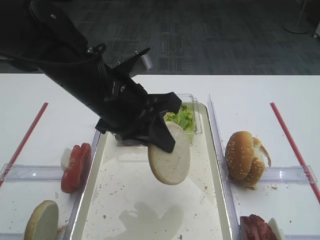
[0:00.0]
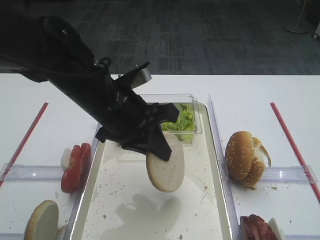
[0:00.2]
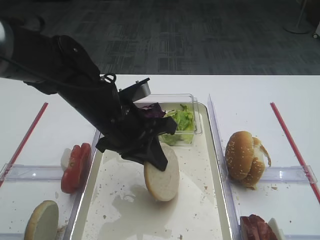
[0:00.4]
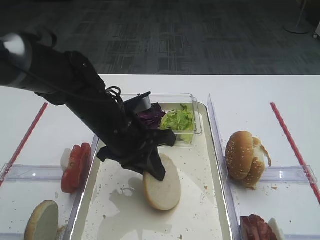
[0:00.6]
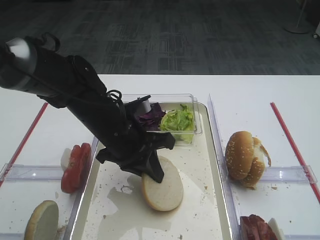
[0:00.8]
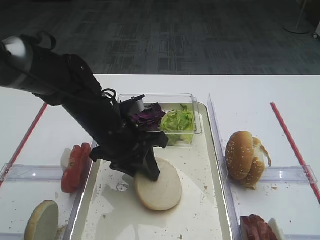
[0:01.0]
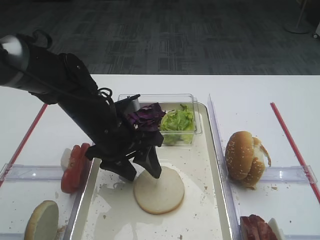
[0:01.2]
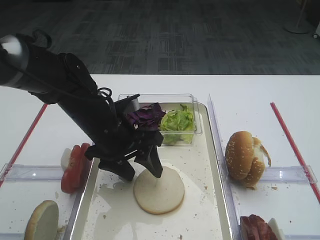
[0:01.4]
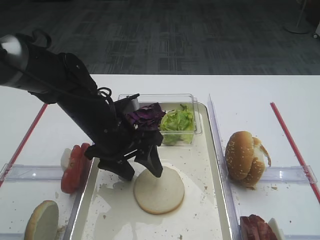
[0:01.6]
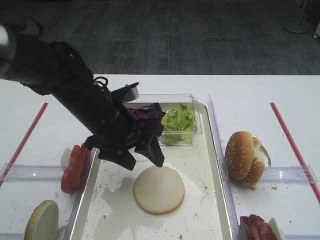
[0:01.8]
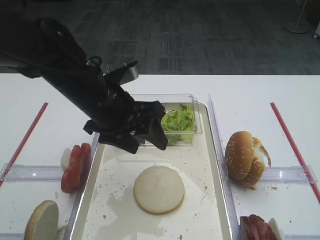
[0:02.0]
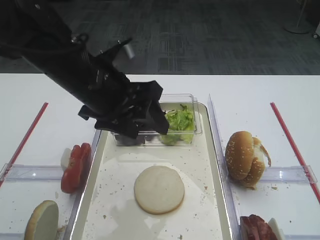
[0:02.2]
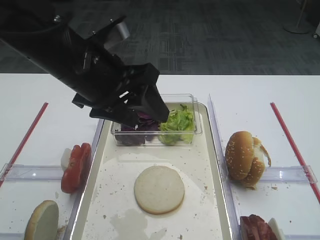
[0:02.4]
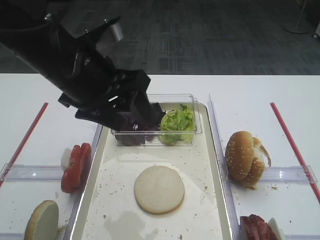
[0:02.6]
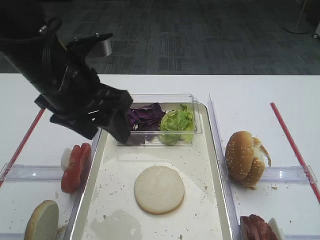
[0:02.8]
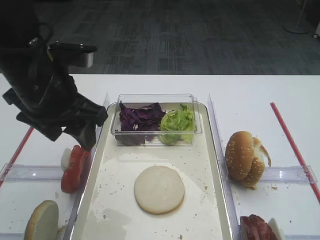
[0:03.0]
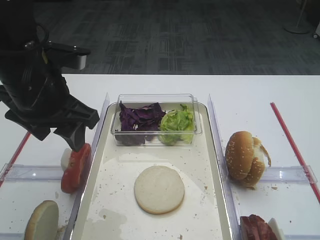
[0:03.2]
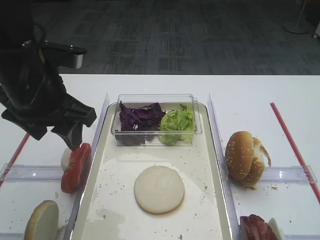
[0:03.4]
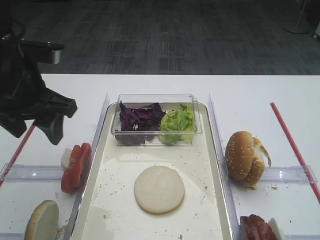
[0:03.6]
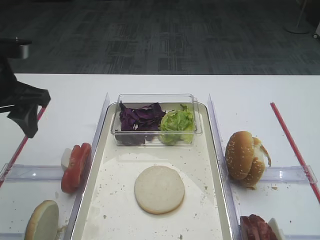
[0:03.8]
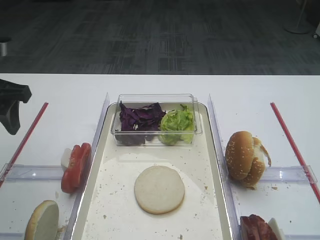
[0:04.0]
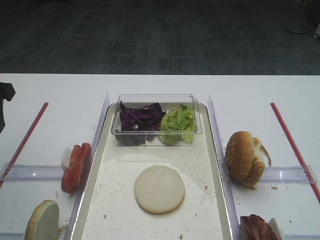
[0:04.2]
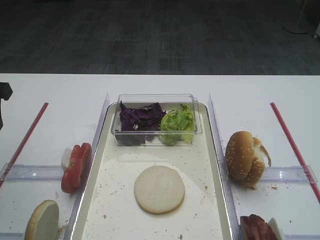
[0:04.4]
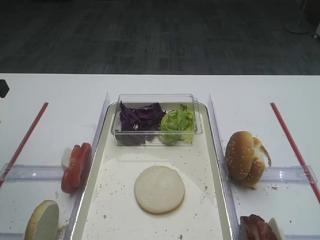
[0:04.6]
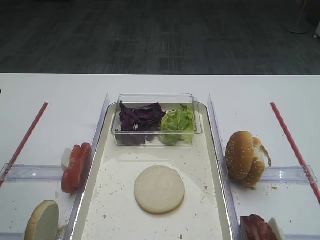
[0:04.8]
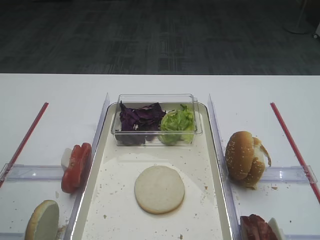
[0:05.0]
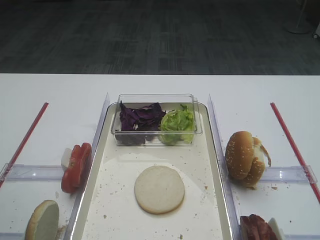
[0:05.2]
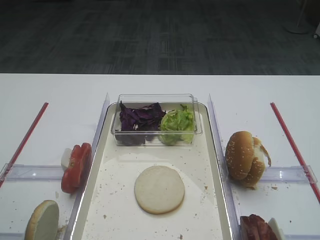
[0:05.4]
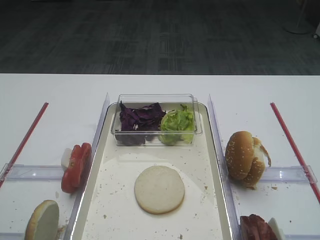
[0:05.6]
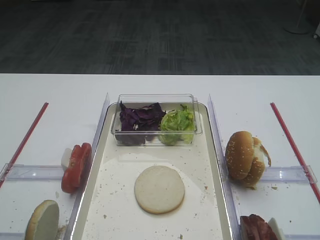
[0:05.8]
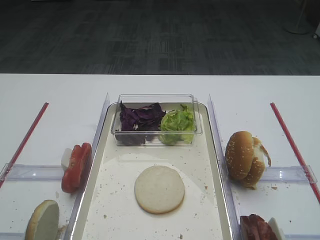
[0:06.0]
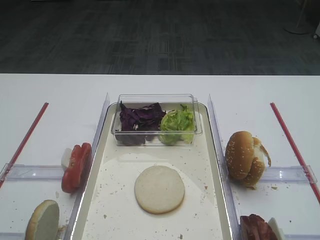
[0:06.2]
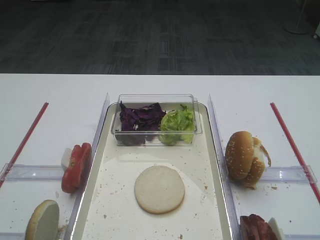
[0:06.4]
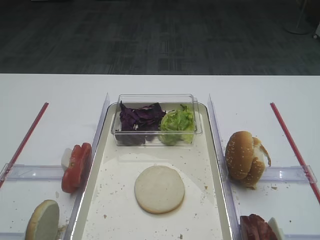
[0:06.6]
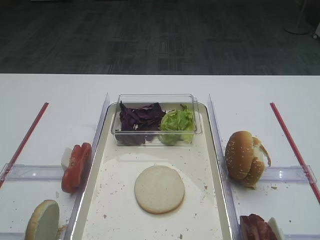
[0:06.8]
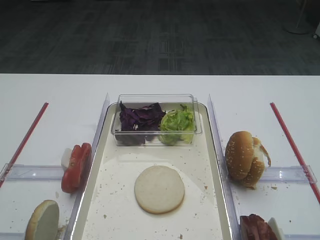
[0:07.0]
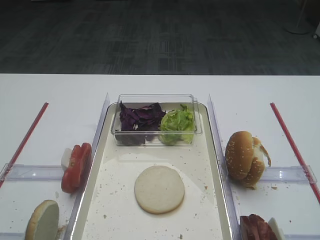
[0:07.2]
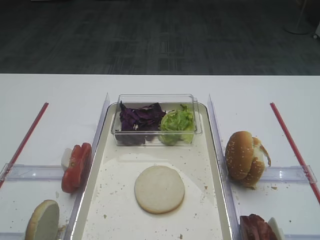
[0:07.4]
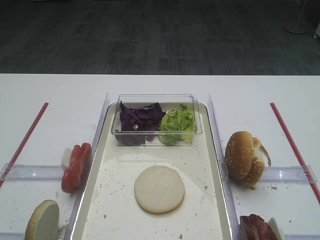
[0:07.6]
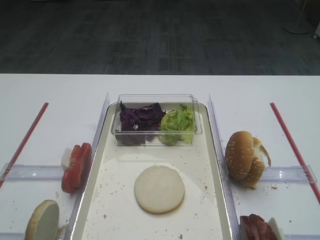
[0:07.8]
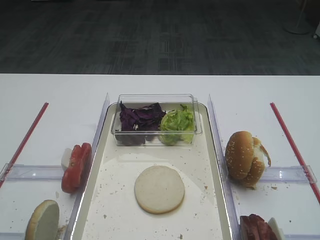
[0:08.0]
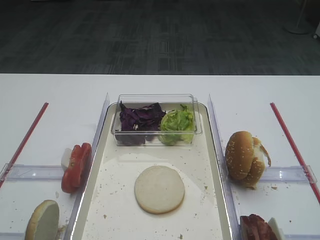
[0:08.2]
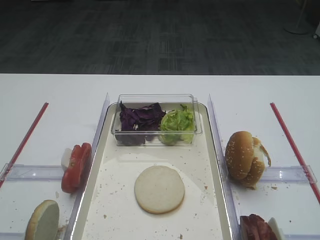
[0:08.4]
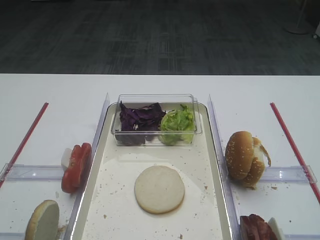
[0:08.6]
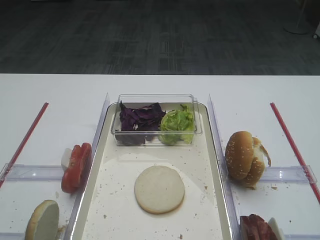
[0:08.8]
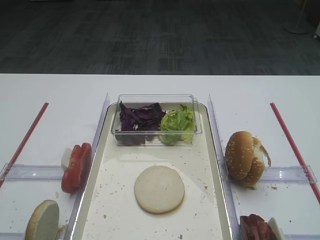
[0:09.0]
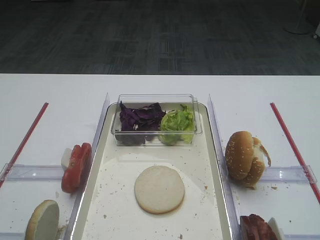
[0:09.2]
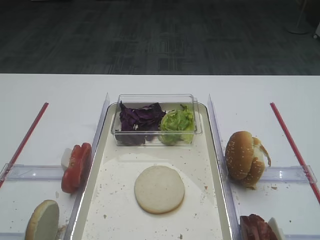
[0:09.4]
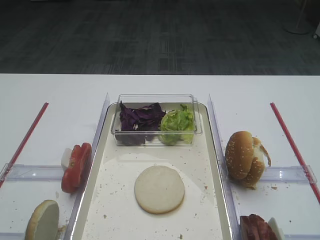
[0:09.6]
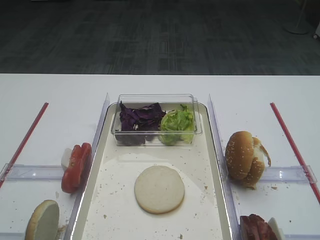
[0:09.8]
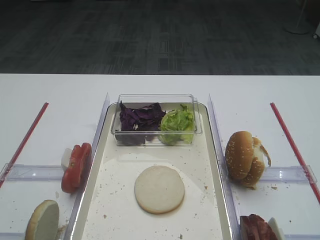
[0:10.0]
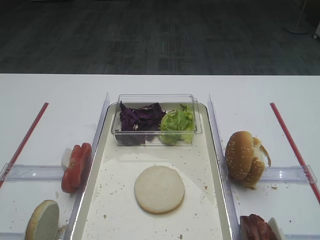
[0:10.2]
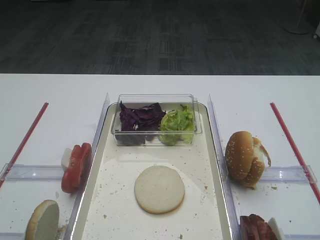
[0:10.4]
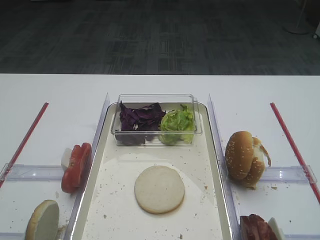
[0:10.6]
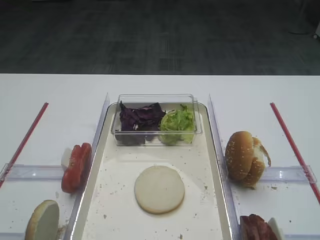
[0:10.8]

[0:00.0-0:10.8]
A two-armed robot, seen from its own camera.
Step, 0:00.0 to 0:03.0: Place the bread slice on the tray with the left gripper.
0:00.0 to 0:01.6: The left gripper shifts roughly 10 cm downward, and opens its fingers.
0:01.6 to 0:03.0: The left gripper goes roughly 15 cm upward and to the left.
0:03.0 to 0:04.6: The left gripper goes about 15 cm to the left.
0:04.6 to 0:06.2: The left gripper shifts about 25 cm backward.
0:07.8 to 0:10.8: Both grippers stay put.

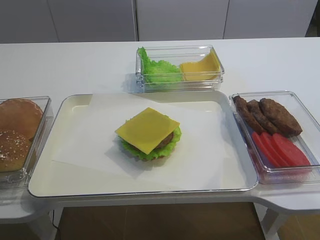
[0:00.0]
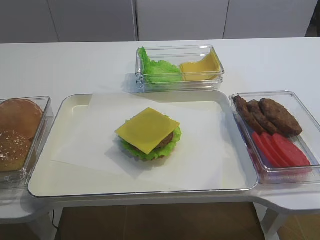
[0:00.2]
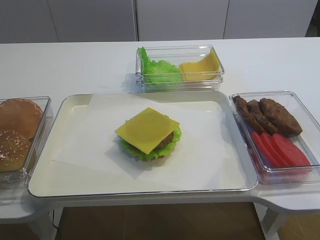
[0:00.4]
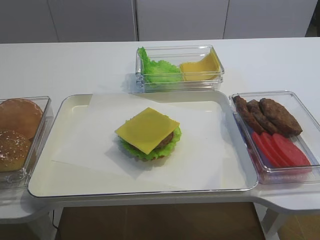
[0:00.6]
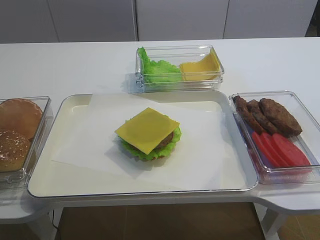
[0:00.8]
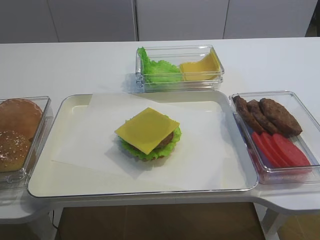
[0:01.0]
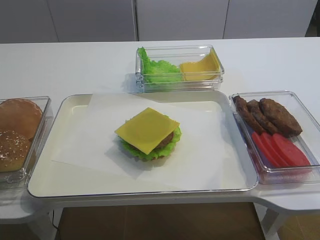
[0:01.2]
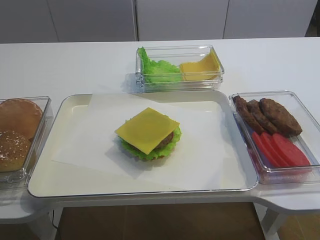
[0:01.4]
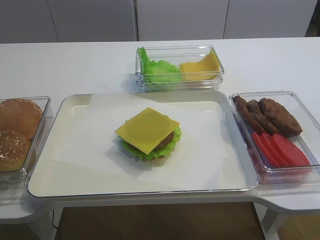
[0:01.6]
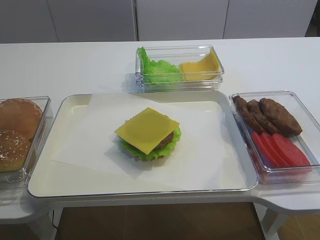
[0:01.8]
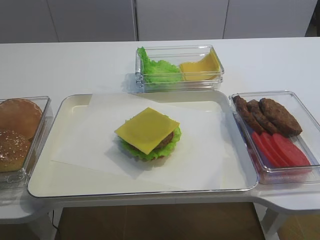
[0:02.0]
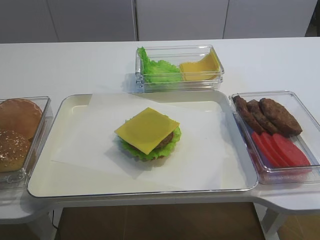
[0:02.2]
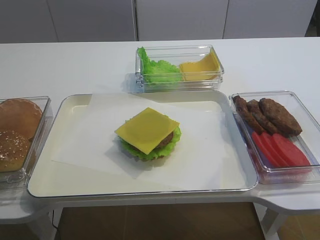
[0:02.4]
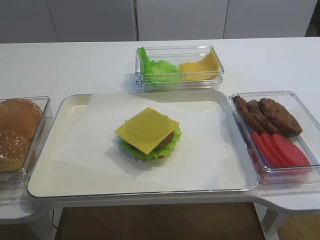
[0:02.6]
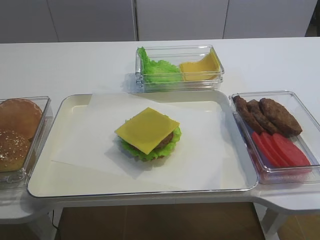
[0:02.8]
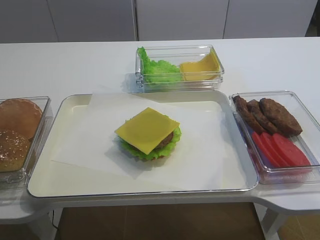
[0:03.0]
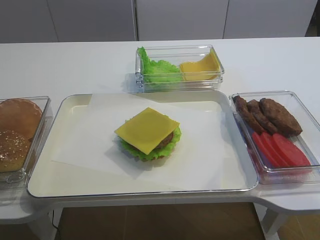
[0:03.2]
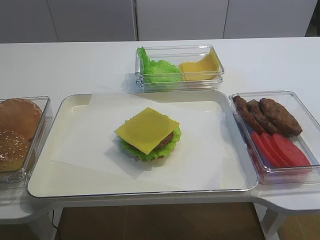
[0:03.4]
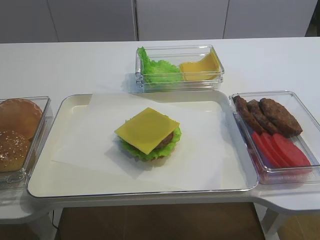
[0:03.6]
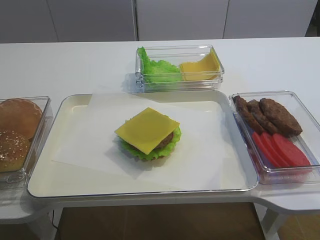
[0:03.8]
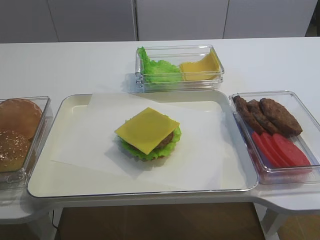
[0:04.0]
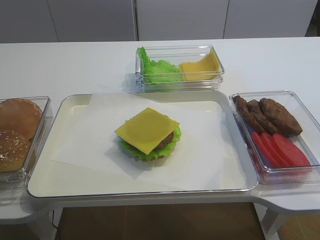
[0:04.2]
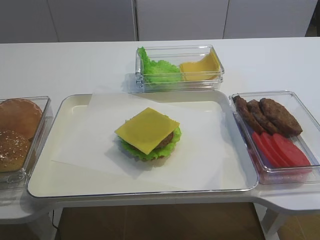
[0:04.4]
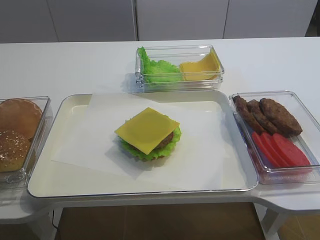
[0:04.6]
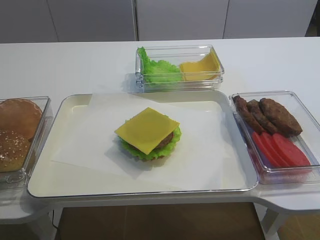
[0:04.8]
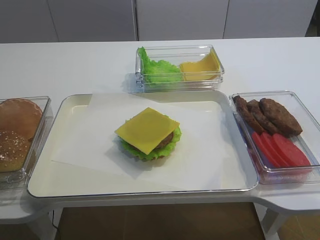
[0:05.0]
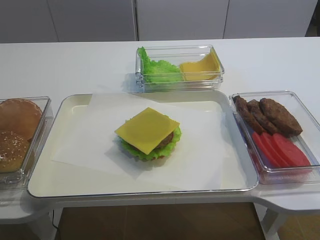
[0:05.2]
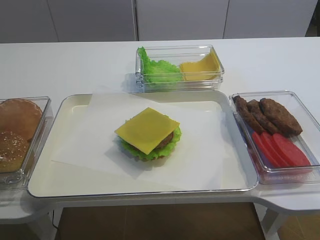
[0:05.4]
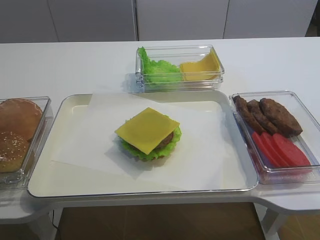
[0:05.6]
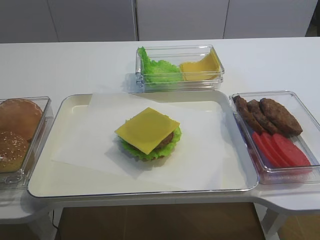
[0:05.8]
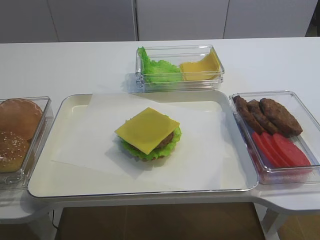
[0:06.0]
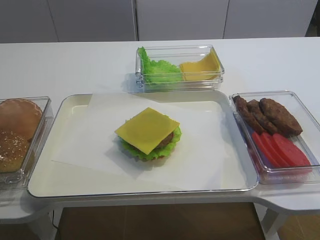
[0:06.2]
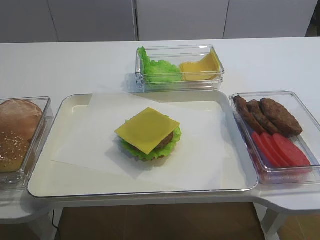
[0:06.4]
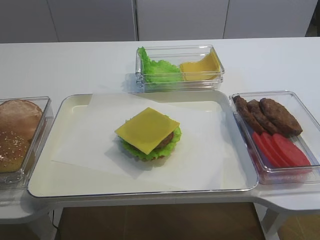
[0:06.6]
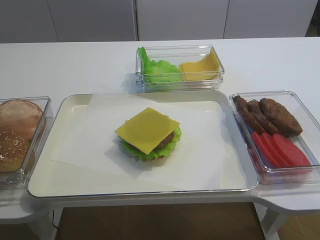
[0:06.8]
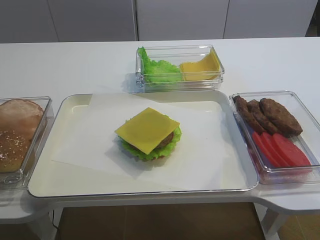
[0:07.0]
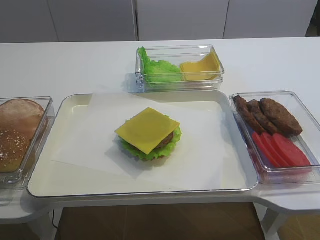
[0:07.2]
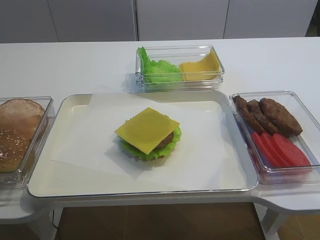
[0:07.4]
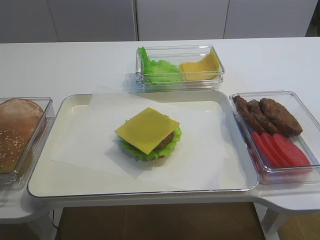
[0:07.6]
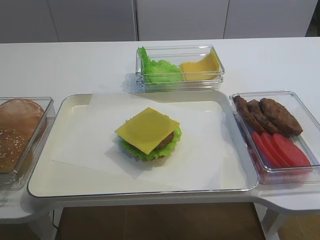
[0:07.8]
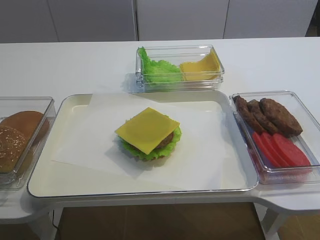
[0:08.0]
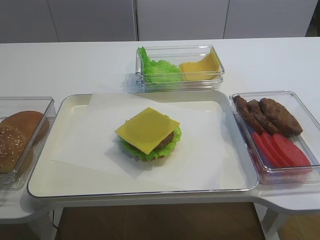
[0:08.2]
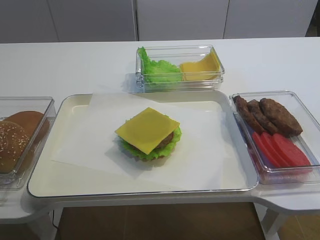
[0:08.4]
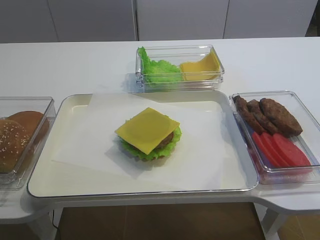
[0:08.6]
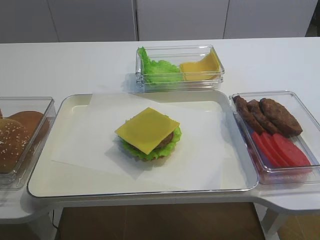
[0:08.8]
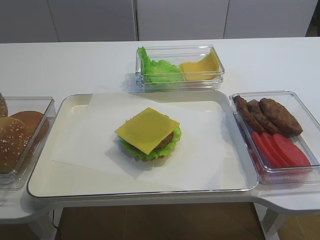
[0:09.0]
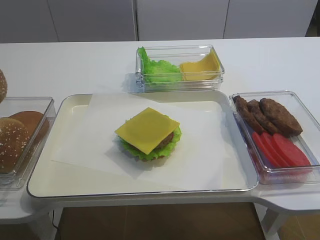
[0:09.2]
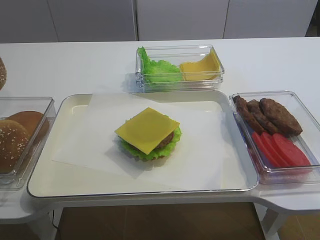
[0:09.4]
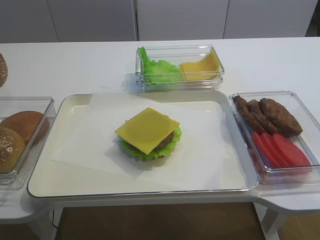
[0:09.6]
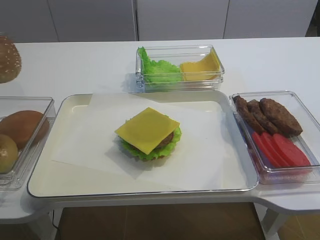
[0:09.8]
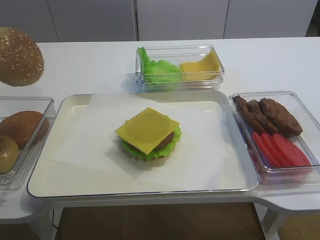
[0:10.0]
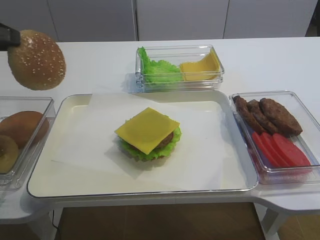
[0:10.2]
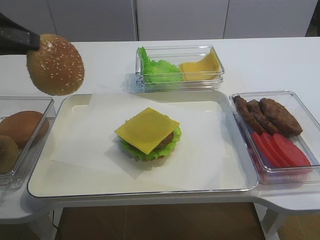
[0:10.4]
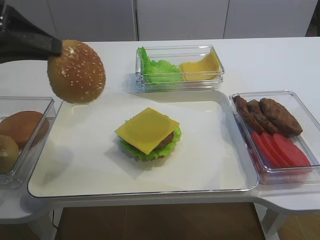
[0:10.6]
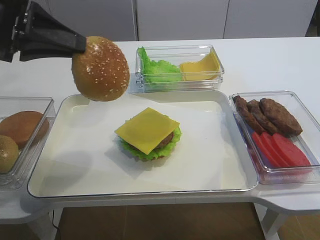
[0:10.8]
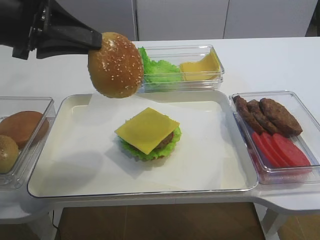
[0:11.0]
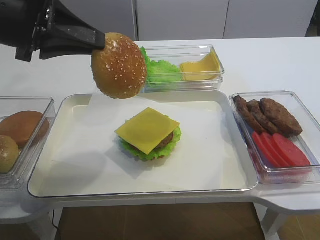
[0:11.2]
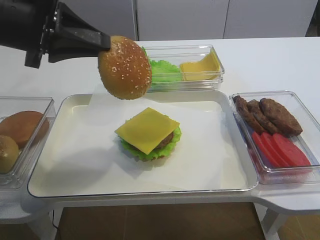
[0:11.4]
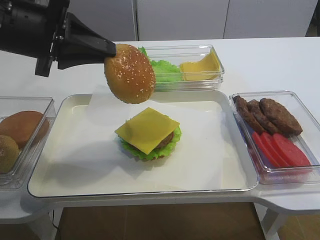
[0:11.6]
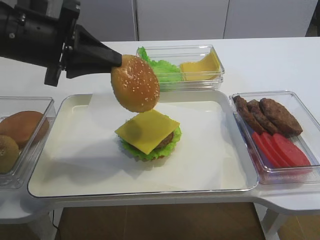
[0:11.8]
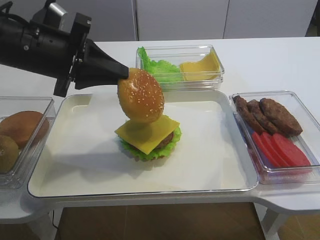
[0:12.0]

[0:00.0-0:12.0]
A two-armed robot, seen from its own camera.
0:06.0 to 0:07.6: The left gripper closes up.
0:07.6 to 0:09.0: The grippers move only a little.
0:09.0 to 0:10.4: The left gripper is displaced to the right by approximately 10 cm.
0:10.4 to 0:12.0: The left gripper goes roughly 10 cm to the right and downward.
